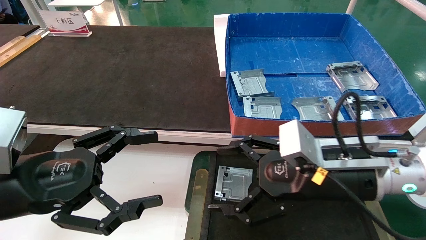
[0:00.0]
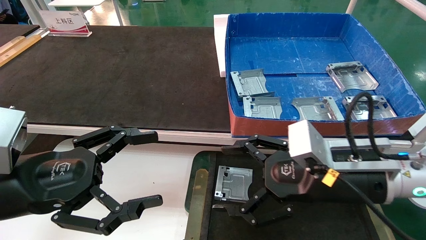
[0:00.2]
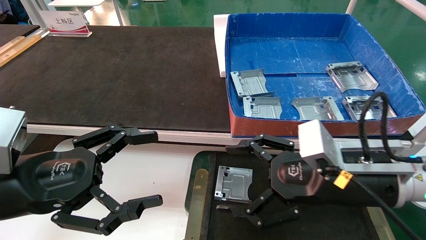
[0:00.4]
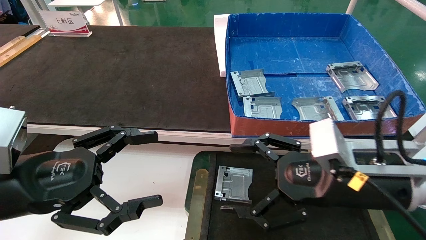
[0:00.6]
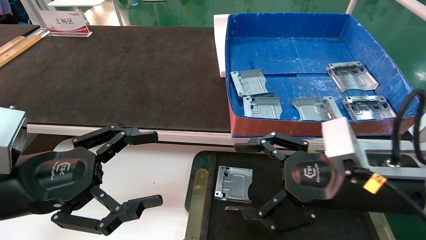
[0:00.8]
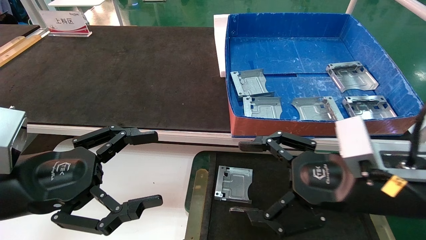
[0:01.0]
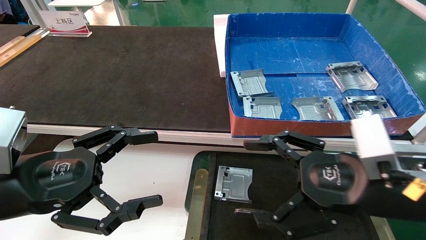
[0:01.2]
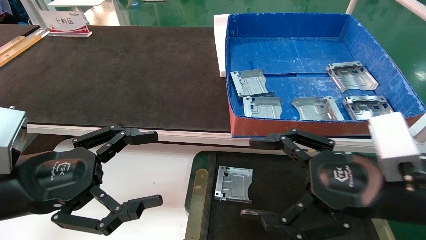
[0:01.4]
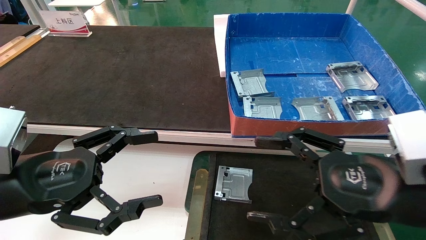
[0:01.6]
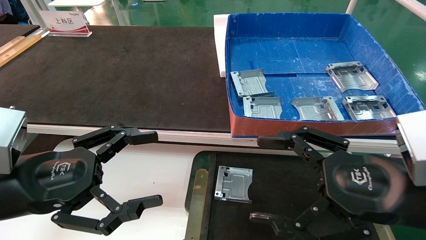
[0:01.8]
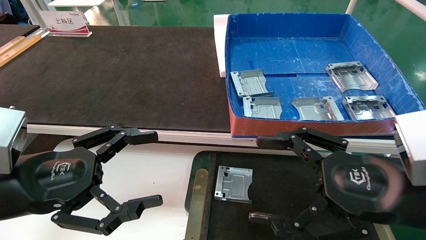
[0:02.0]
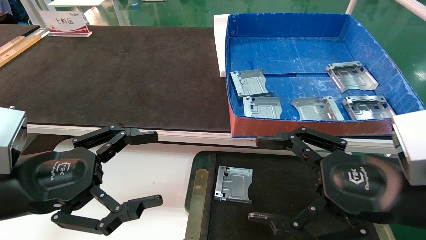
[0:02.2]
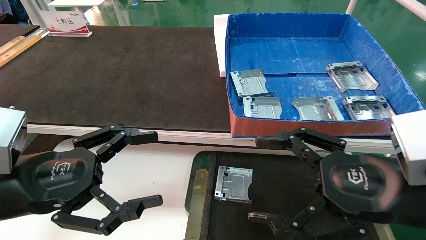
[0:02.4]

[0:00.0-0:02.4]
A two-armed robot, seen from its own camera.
Task of the whole recording: pick up parts and place them into a black container.
0:00.0 to 0:01.2: The right gripper shifts some 5 cm backward.
0:01.2 to 0:02.4: The grippers move only a little.
